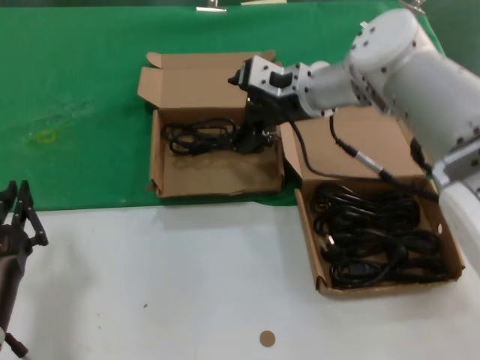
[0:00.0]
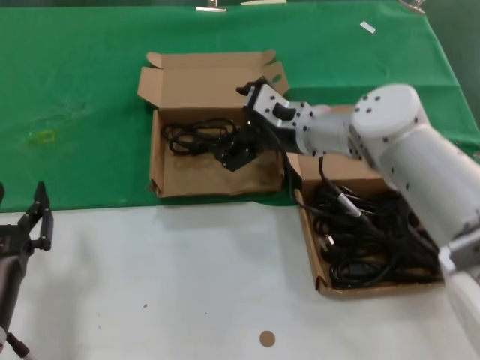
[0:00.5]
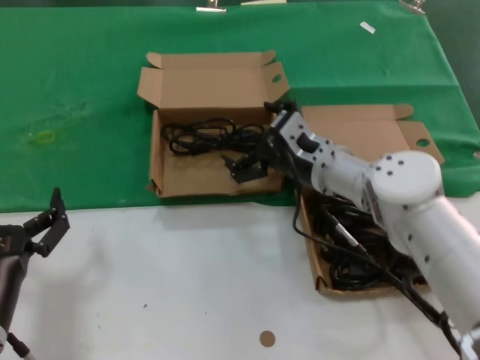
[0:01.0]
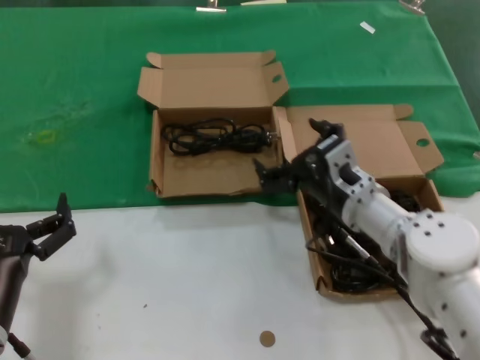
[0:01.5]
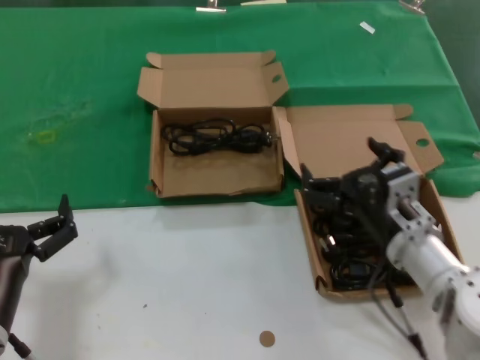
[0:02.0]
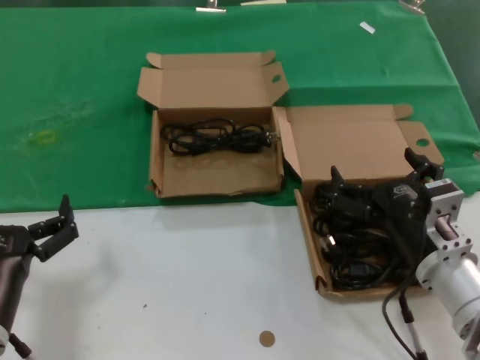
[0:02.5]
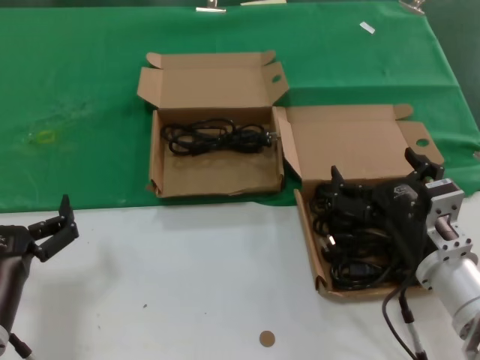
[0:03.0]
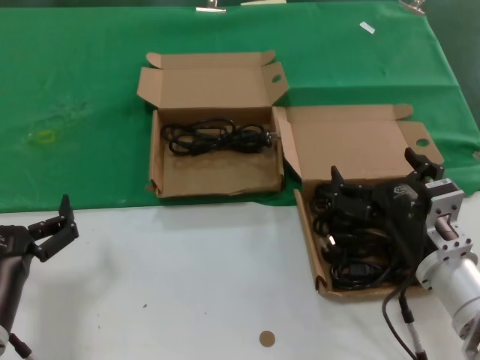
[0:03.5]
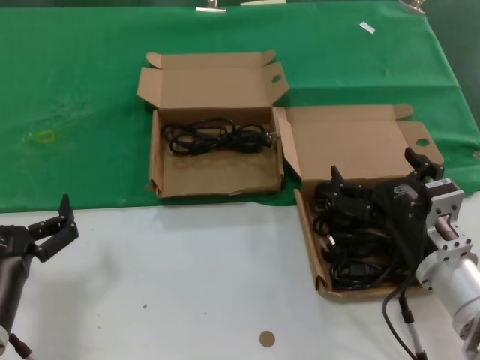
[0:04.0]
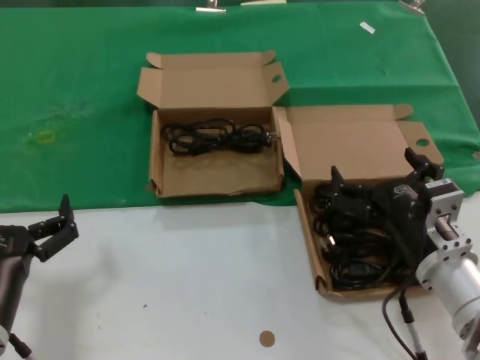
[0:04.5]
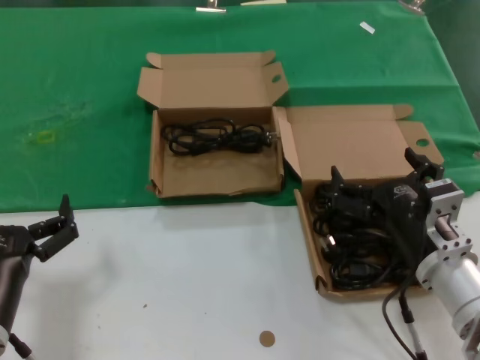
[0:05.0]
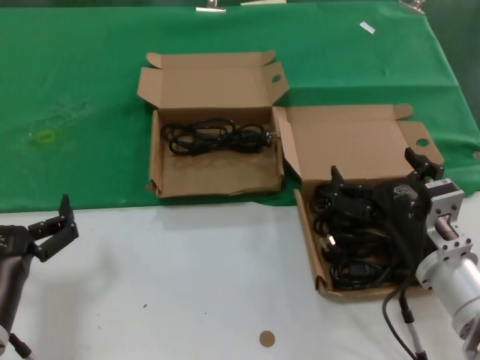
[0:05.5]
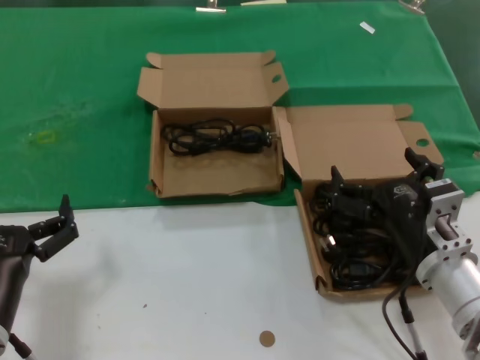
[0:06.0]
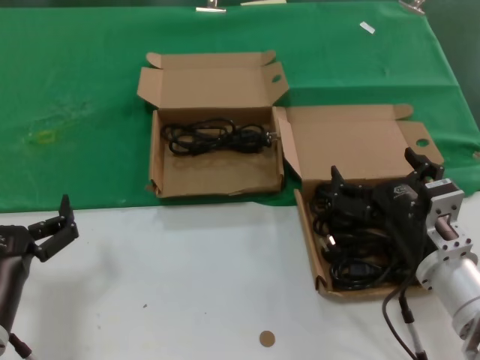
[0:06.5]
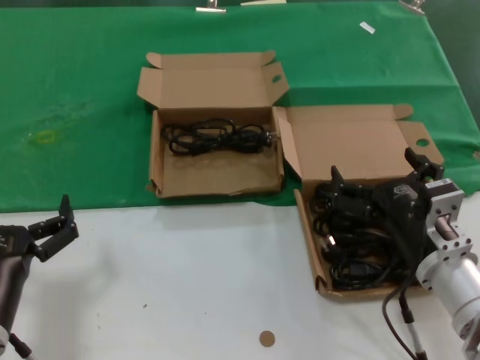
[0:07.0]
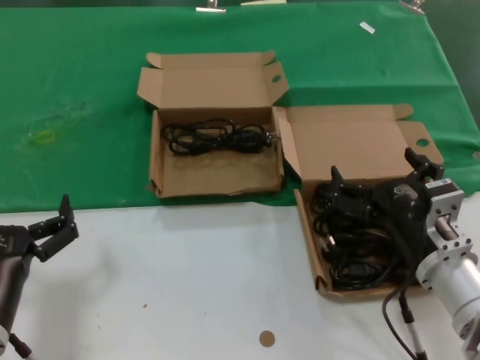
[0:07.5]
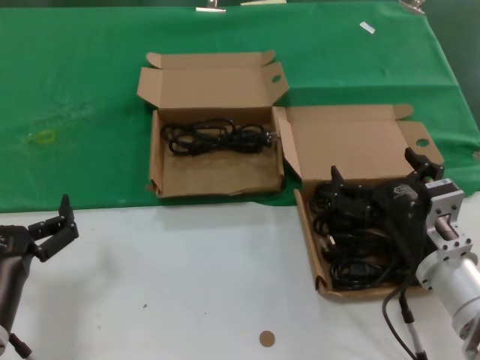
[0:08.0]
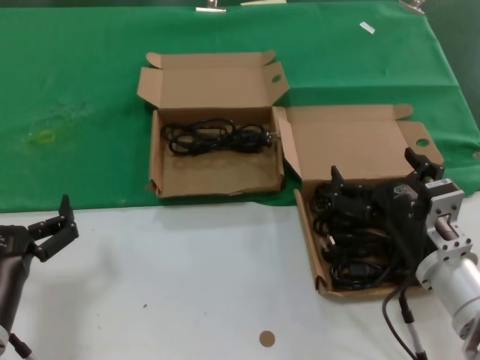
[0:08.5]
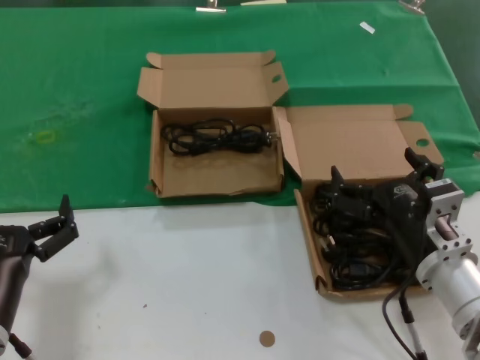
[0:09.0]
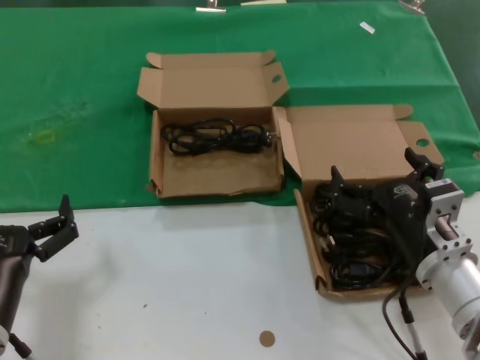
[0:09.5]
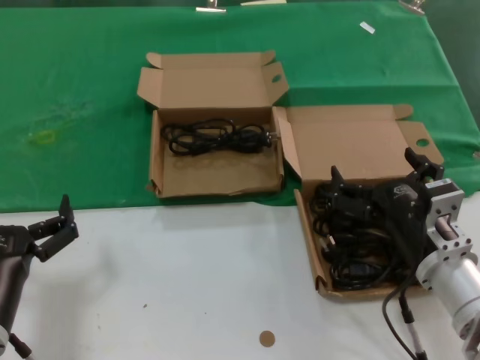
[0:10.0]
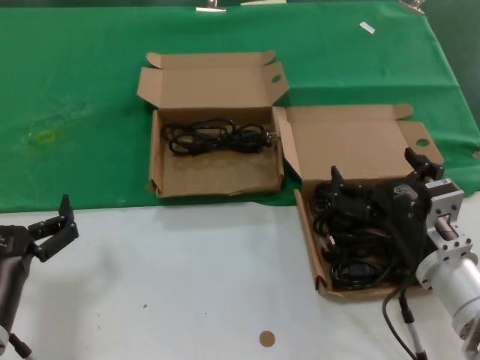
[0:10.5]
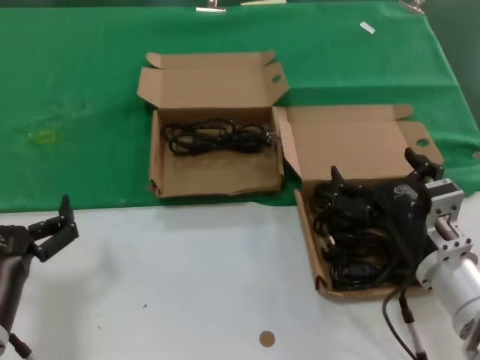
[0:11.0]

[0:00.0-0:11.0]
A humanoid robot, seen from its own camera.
Task of the whole recording: take the parts from the box containing them and put them into an empty box.
0:00.0 to 0:02.0: The right hand shifts approximately 25 cm backward and downward.
0:02.0 to 0:03.5: The right hand moves about 5 cm.
0:03.5 to 0:11.0: Both hands stay about where they are.
